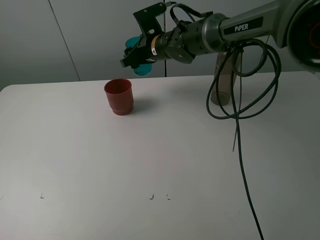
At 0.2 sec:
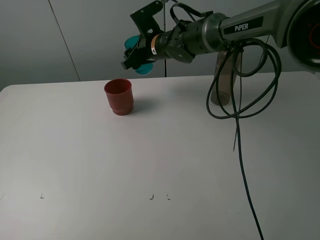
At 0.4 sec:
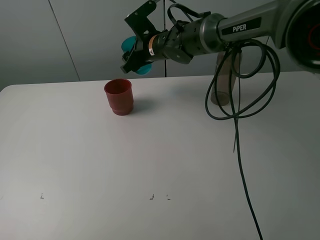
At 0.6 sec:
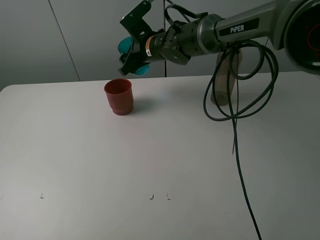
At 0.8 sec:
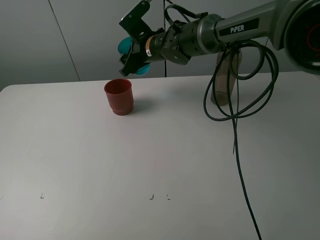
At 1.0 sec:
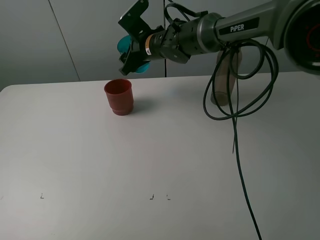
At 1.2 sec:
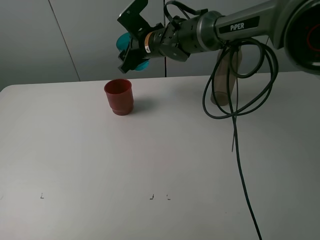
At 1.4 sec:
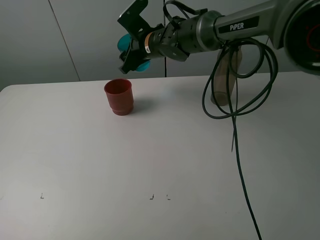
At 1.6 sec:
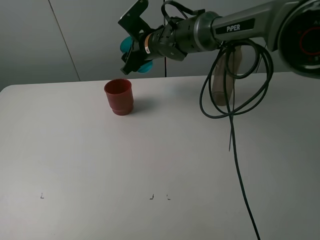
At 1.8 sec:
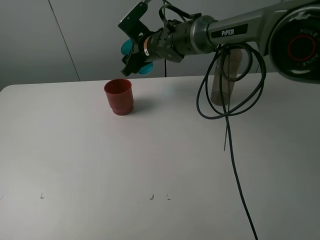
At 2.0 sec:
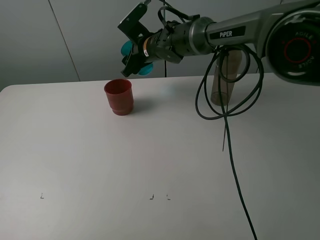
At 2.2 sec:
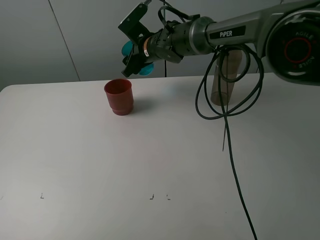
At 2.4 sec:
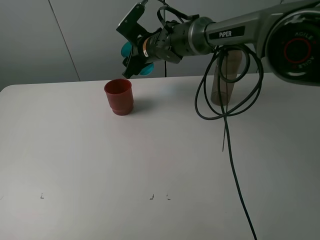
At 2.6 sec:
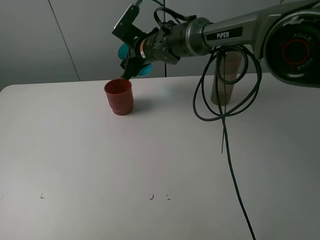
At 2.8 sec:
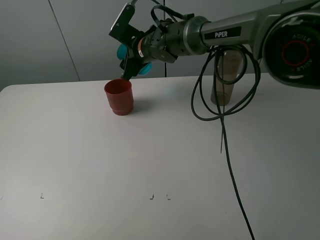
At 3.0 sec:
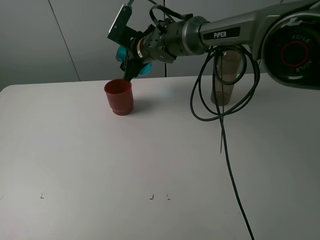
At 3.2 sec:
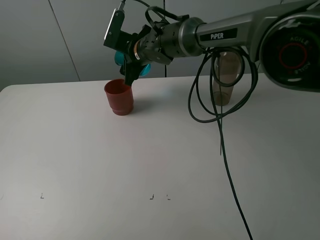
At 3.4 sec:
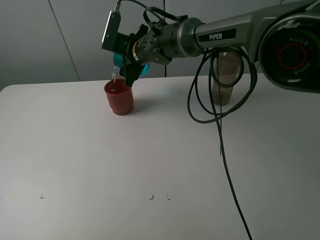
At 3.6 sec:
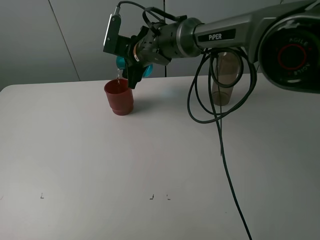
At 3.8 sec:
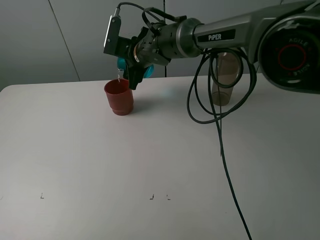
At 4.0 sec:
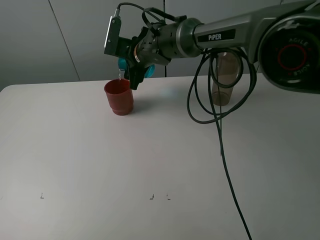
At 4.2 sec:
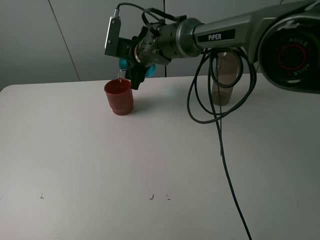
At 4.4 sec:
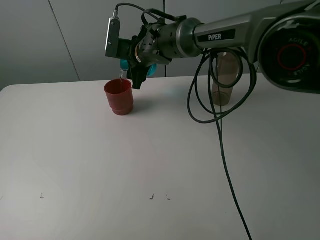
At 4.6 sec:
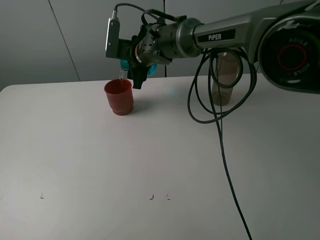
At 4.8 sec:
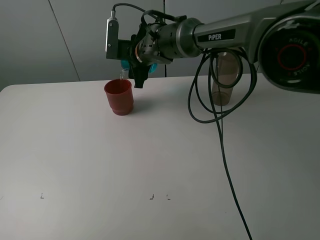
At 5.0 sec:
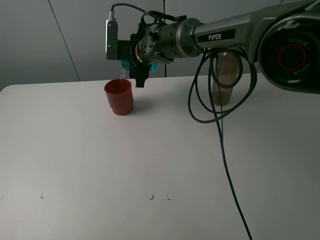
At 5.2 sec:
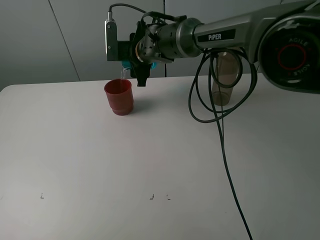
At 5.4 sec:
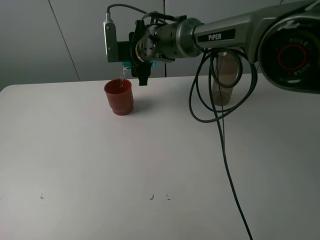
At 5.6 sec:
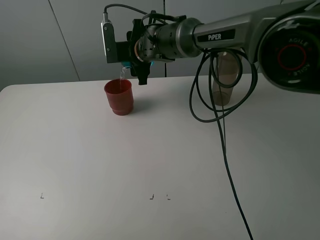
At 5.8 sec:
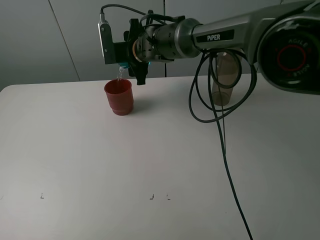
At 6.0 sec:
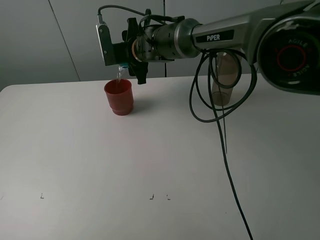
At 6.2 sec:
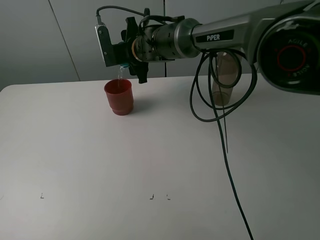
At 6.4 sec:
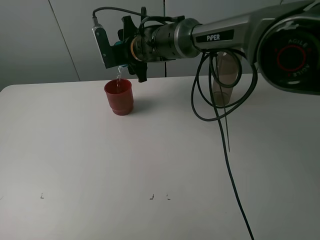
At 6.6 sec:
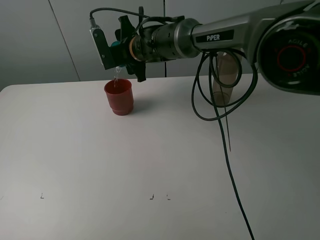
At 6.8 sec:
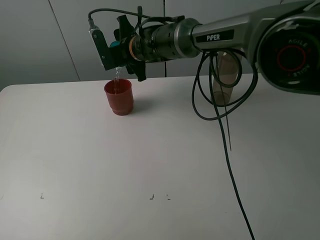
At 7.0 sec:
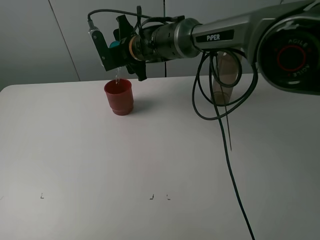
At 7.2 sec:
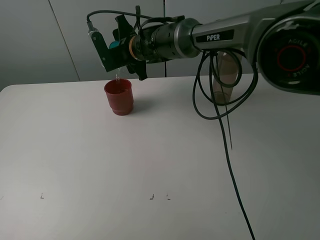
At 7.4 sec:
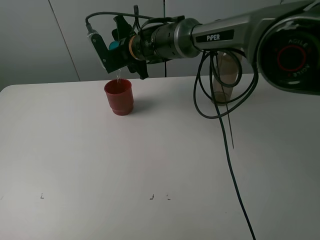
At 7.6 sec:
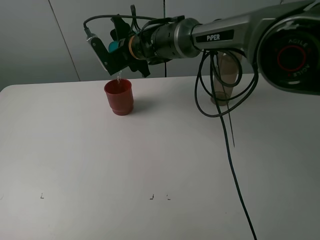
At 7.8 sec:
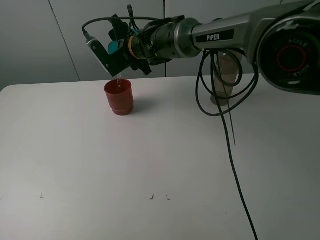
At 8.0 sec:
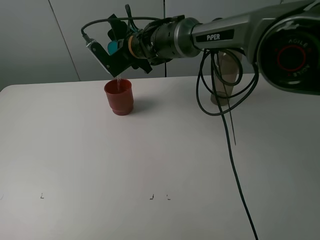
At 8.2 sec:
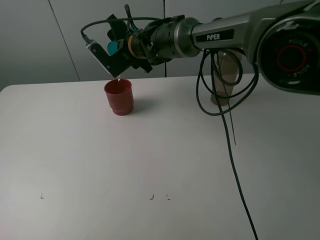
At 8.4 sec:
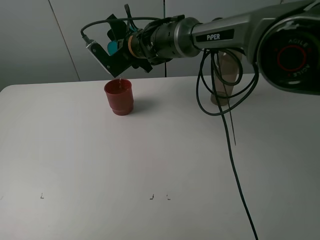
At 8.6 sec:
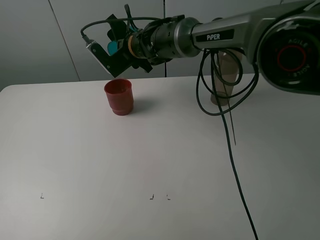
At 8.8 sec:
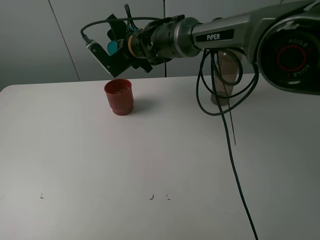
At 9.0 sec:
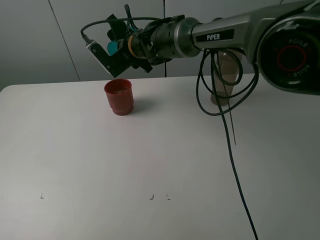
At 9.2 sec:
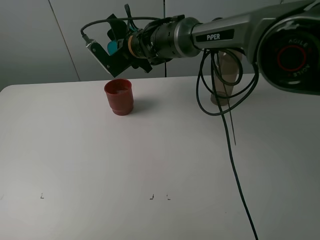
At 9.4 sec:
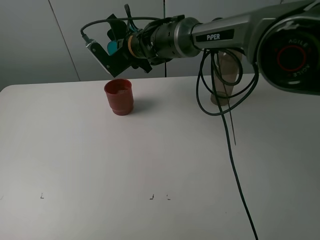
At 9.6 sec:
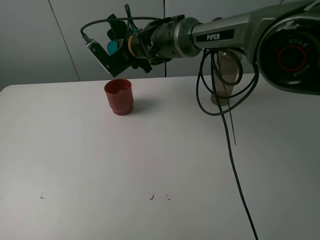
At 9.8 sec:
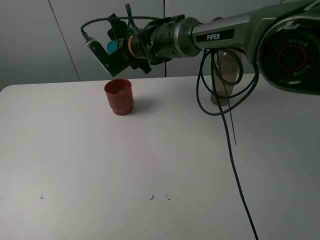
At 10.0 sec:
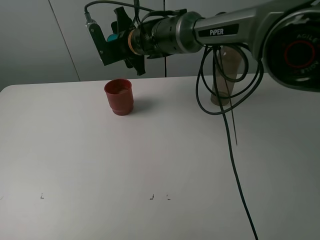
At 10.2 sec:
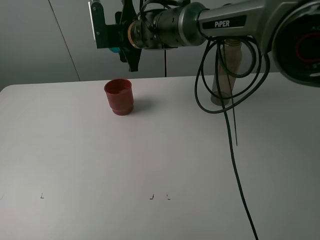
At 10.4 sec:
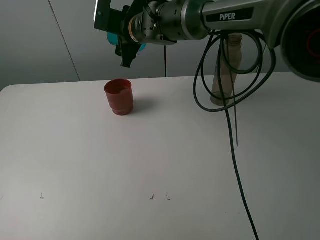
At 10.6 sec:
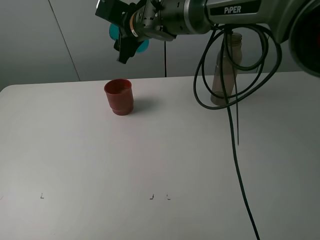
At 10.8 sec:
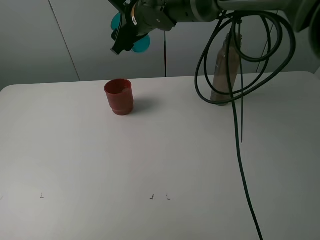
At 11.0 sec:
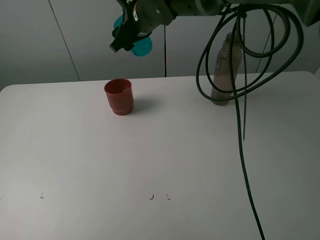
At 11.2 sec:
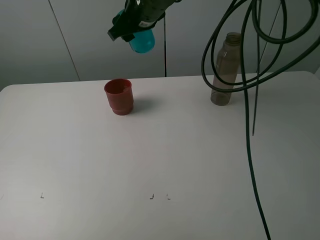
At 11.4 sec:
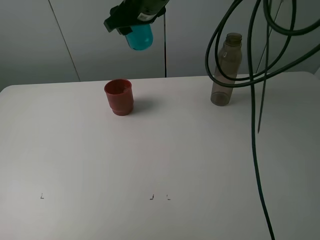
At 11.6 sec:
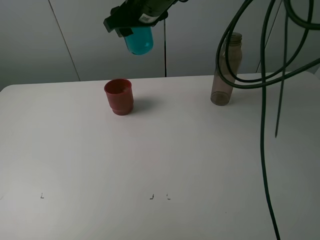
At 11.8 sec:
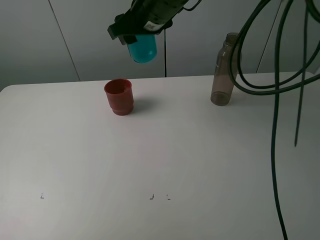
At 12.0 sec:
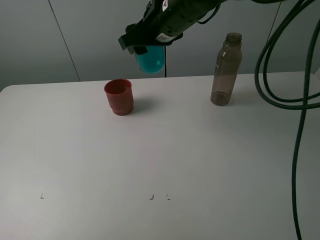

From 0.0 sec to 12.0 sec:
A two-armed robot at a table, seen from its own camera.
Task of the whole recording: pick up the bottle and pour water into the cup, then pick up the cup containing water and pour it into another cup.
Step, from 0.0 sec to 7.6 sec: Pour water from blue cup to red cup with the right gripper.
From 0.0 sec to 1.6 sec: The grippers stay close to where they were, moving slightly.
From 1.6 sec to 3.0 sec: There are only small adjustments of the grippers.
From 3.0 sec to 4.4 sec: The grippers stay close to where they were, moving slightly.
From 7.6 sec to 9.0 sec: The grippers stay close to where they were, moving slightly.
From 10.4 sec to 12.0 sec: The right gripper goes roughly 15 cm backward, to the right and upward.

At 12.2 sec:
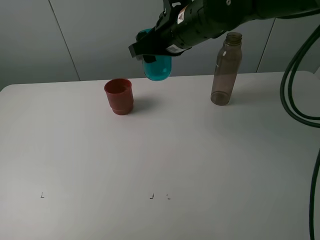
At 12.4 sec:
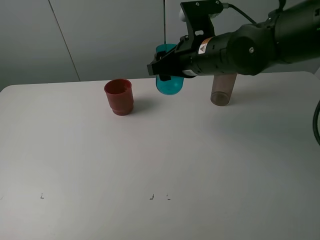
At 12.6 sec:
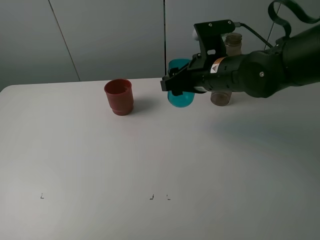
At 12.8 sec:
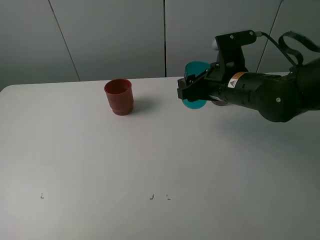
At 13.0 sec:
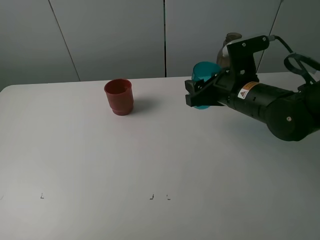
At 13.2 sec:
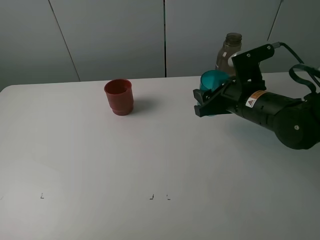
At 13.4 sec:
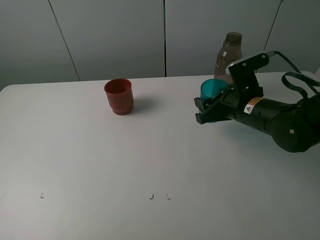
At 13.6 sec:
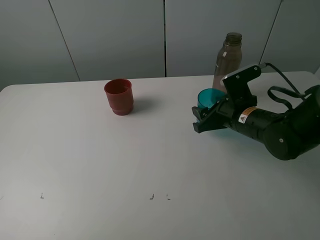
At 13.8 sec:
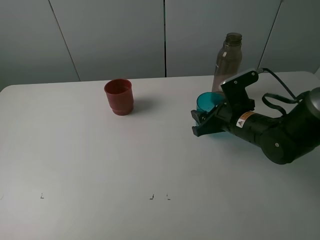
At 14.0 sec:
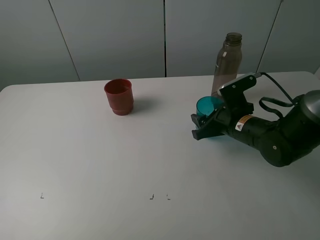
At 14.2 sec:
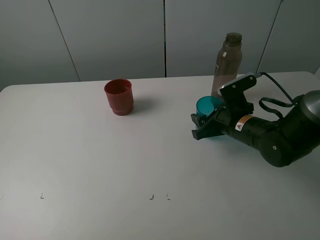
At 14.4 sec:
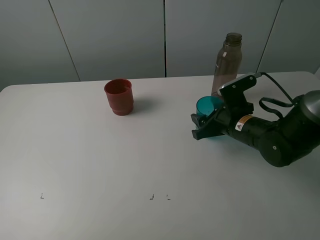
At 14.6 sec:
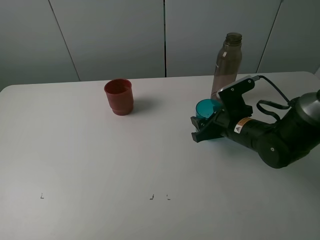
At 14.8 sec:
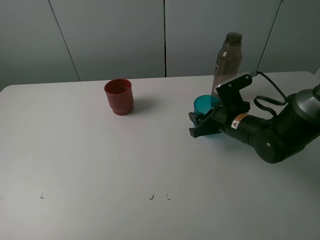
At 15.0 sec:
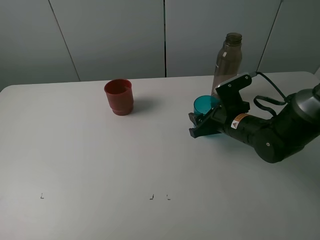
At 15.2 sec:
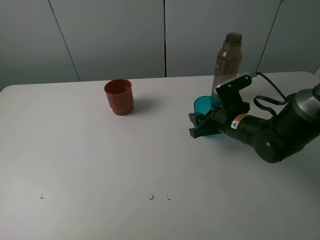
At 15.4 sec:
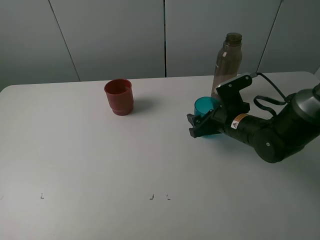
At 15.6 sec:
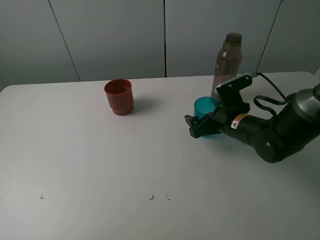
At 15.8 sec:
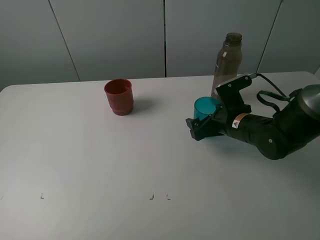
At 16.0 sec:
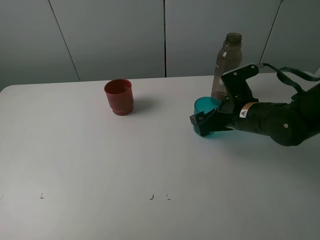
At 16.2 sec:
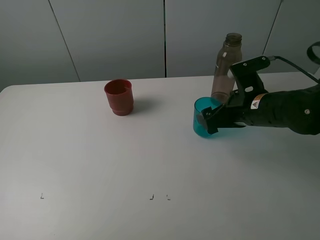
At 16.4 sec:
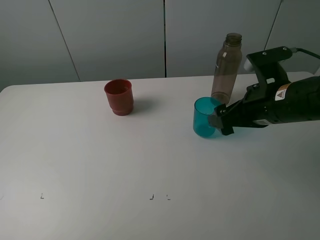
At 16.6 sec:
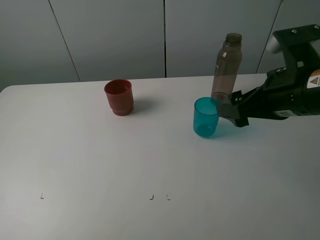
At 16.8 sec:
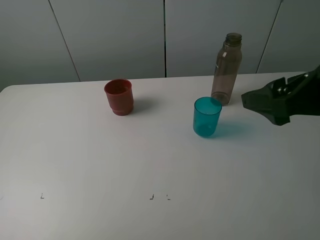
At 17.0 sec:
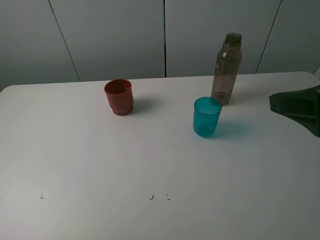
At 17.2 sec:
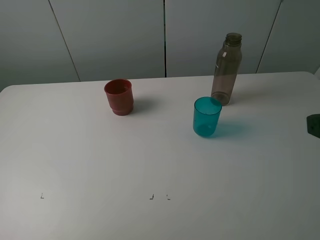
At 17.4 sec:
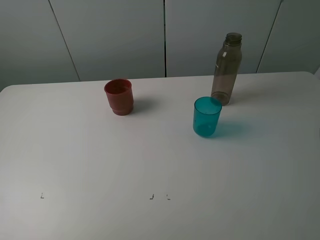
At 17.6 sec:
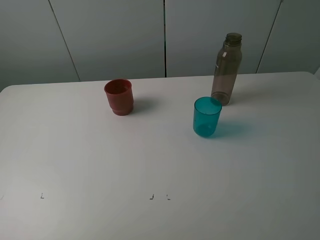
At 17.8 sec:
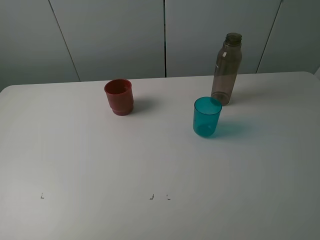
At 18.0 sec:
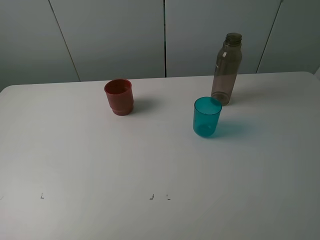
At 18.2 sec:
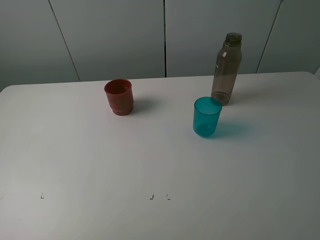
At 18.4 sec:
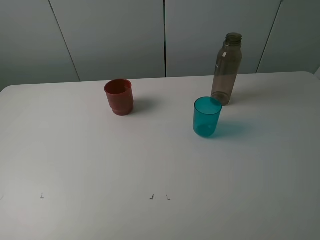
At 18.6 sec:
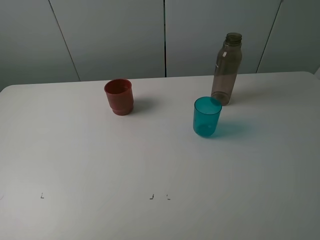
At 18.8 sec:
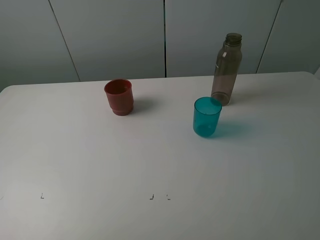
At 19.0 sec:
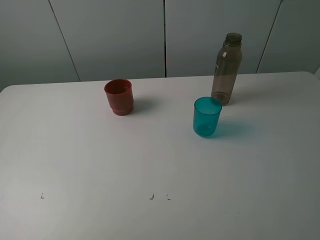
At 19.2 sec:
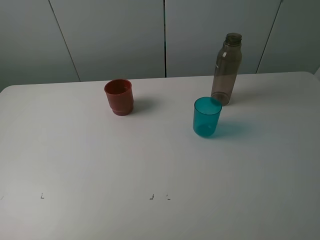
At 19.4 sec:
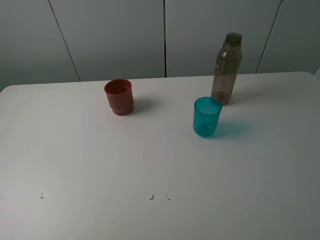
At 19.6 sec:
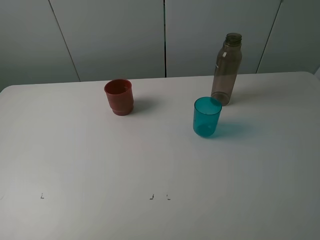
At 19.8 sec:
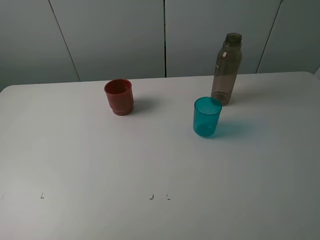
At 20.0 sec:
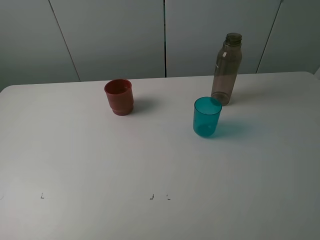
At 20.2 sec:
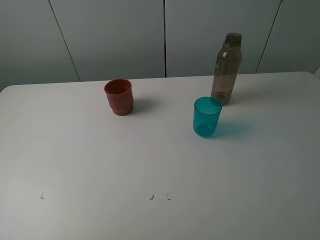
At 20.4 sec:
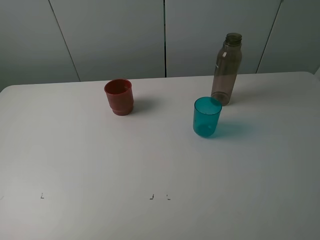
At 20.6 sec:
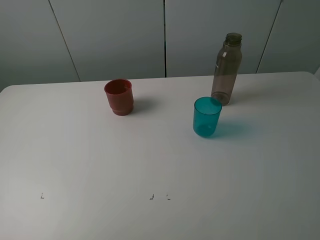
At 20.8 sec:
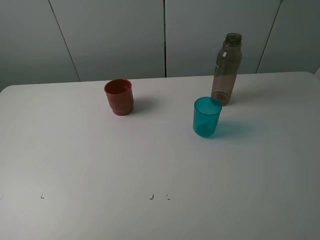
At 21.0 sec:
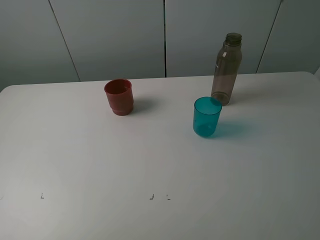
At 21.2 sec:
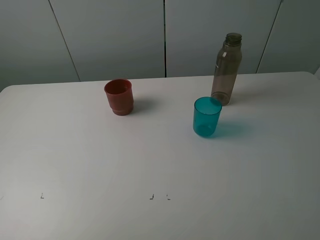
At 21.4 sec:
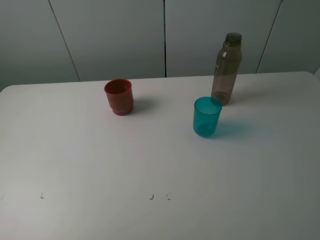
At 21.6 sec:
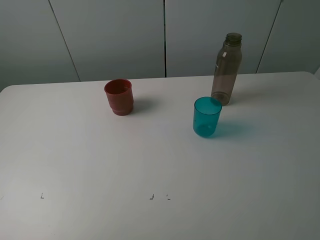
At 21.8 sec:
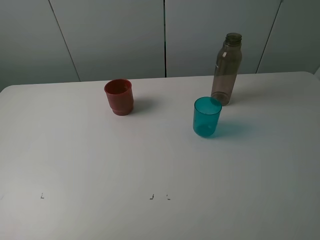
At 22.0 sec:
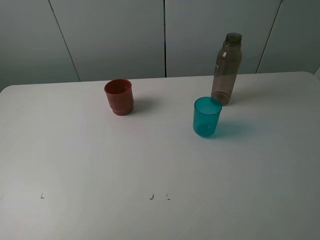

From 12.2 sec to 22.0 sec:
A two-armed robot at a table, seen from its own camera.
Task of the whole recording: pick up the bottle and pour water into the cup, then pick up the cup containing water and pour it into another cup.
Step, from 12.2 sec to 15.6 sec: Place the blue cup with the right gripper.
From 12.2 sec to 13.6 sec: The right gripper goes roughly 20 cm downward and to the right.
From 13.6 sec to 15.0 sec: There are only small adjustments of the grippers.
From 15.0 sec to 16.4 sec: The right gripper is displaced upward and backward by about 15 cm, and opens.
From 16.4 sec to 17.8 sec: The right gripper is displaced backward, to the right and upward by some 20 cm.
From 19.2 sec to 22.0 sec: Neither gripper changes place.
